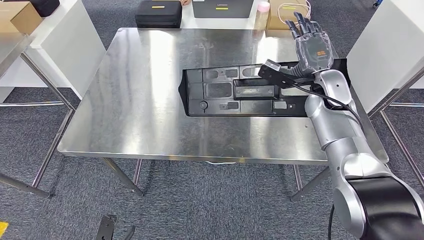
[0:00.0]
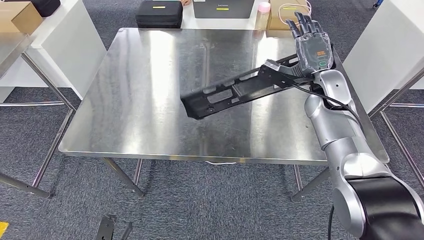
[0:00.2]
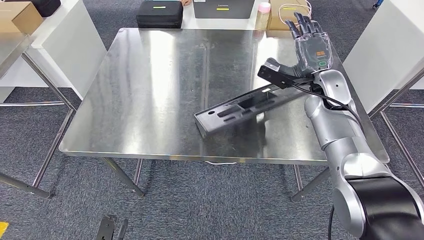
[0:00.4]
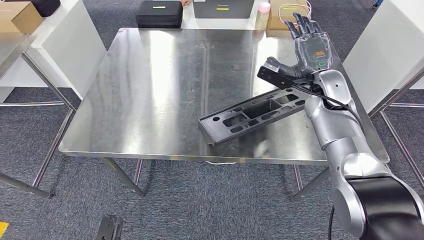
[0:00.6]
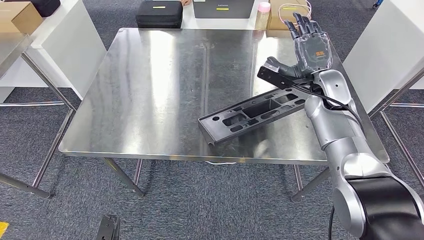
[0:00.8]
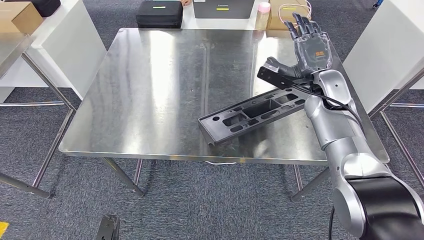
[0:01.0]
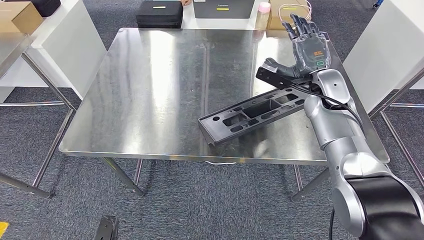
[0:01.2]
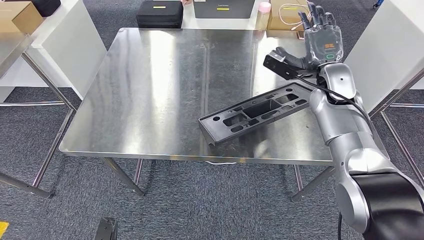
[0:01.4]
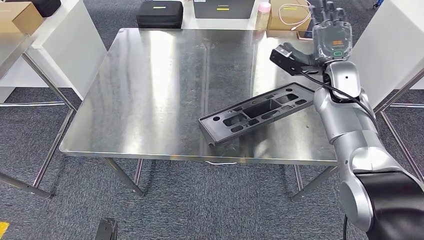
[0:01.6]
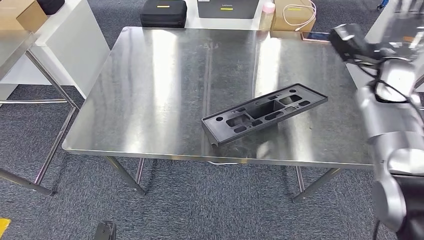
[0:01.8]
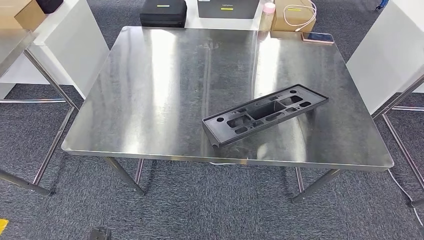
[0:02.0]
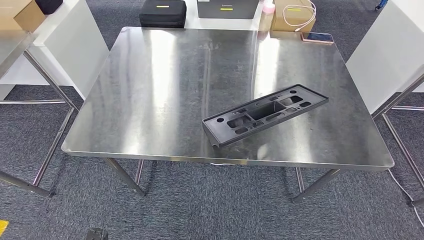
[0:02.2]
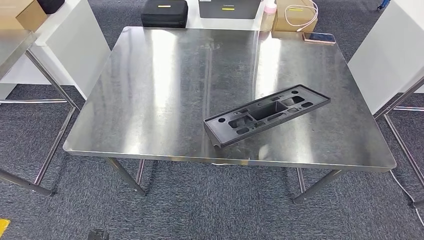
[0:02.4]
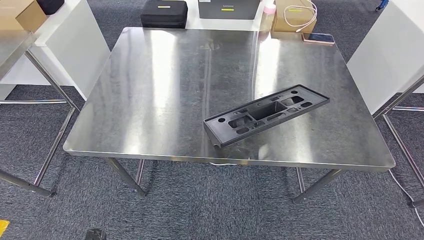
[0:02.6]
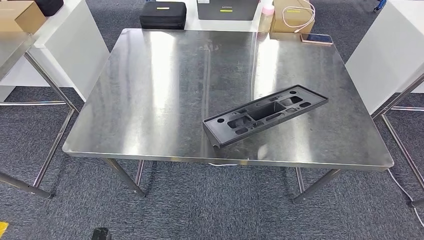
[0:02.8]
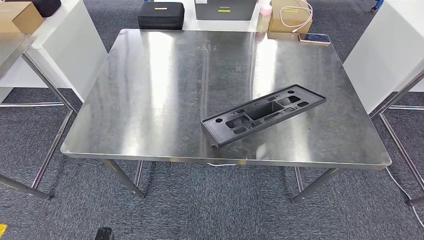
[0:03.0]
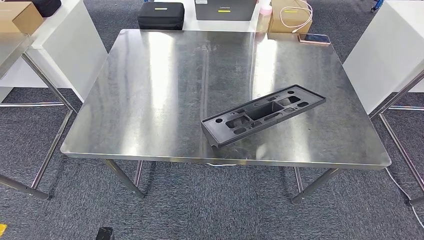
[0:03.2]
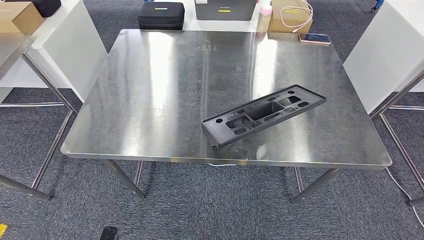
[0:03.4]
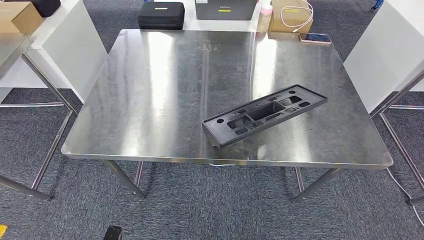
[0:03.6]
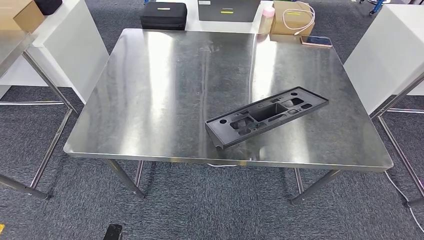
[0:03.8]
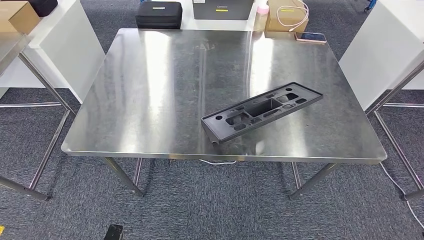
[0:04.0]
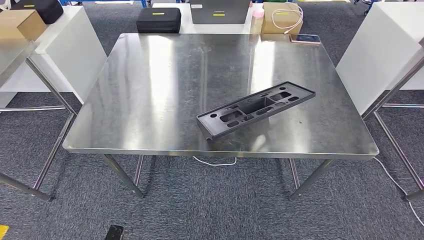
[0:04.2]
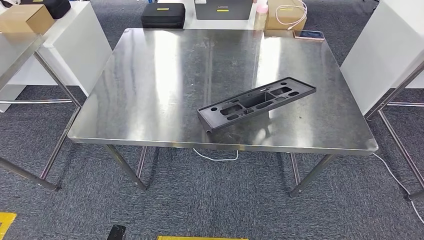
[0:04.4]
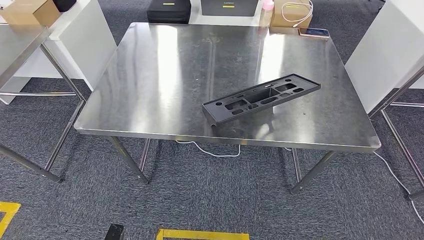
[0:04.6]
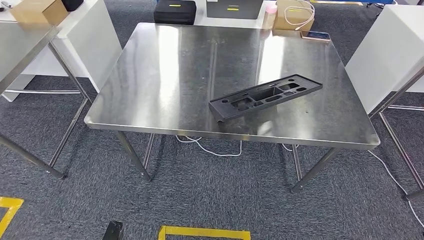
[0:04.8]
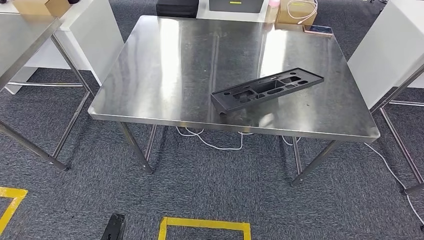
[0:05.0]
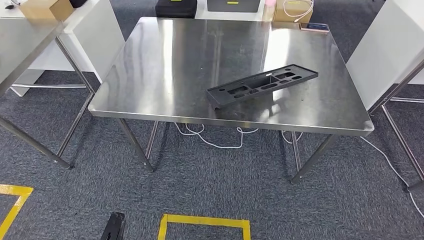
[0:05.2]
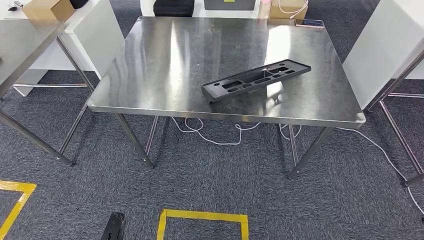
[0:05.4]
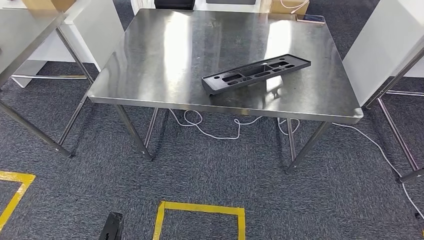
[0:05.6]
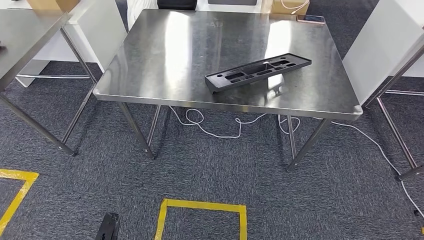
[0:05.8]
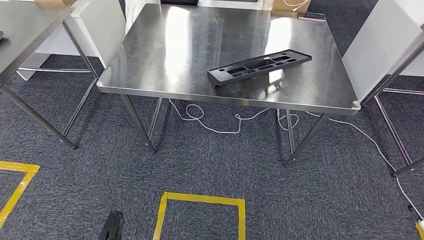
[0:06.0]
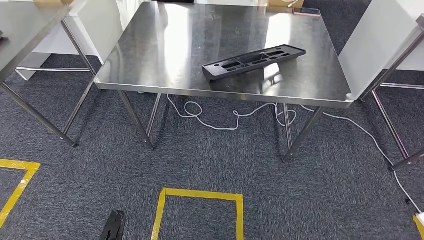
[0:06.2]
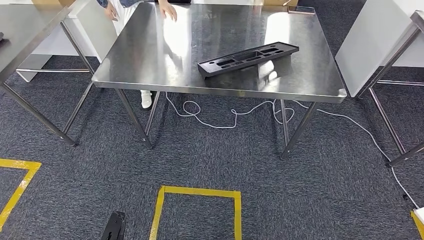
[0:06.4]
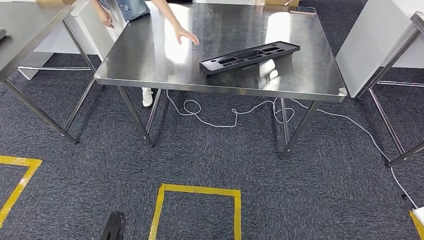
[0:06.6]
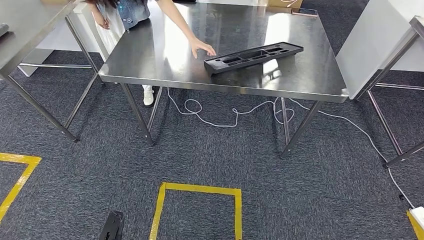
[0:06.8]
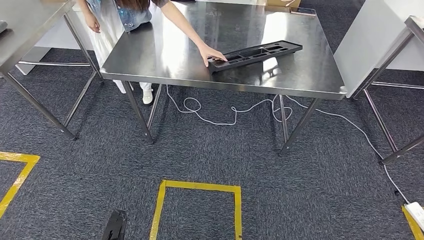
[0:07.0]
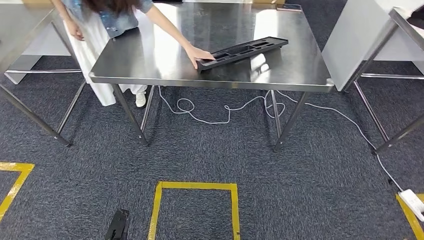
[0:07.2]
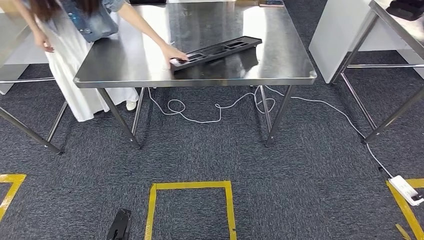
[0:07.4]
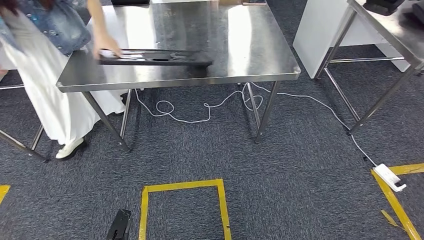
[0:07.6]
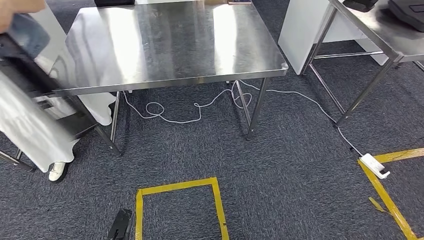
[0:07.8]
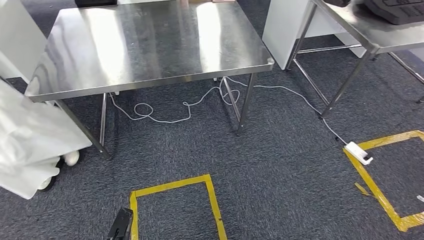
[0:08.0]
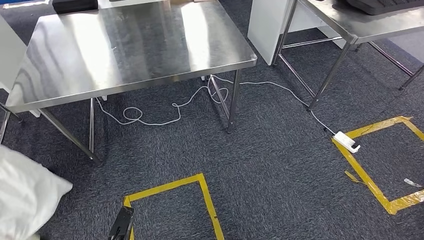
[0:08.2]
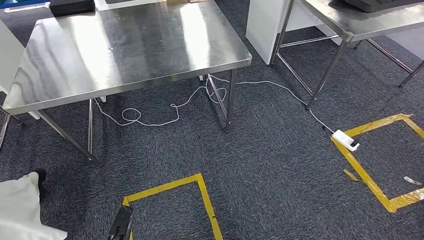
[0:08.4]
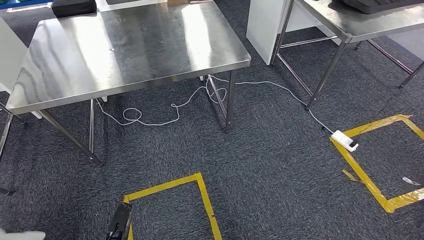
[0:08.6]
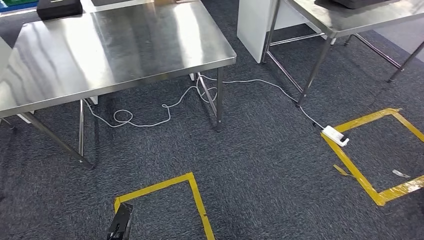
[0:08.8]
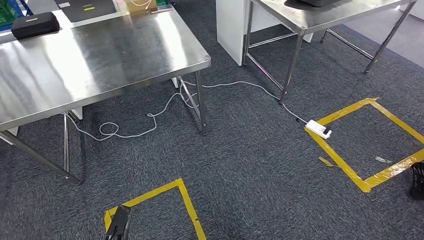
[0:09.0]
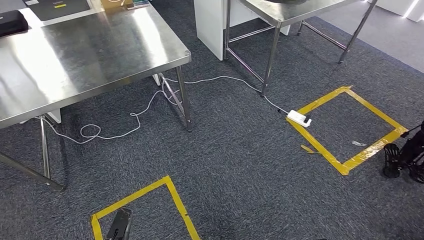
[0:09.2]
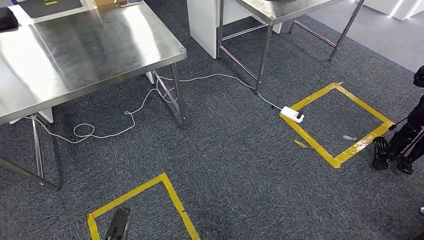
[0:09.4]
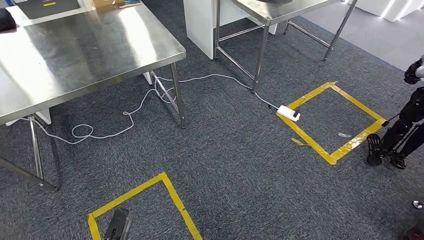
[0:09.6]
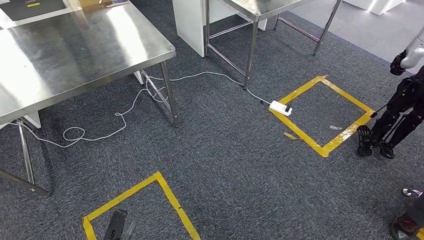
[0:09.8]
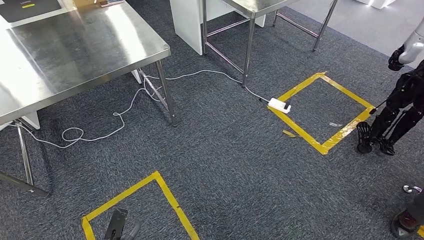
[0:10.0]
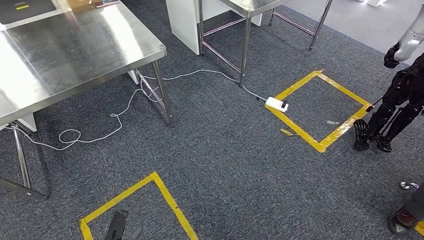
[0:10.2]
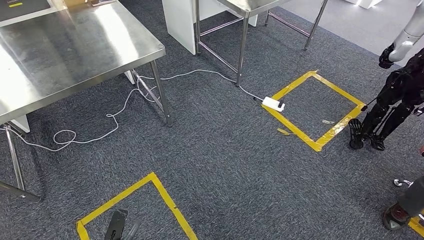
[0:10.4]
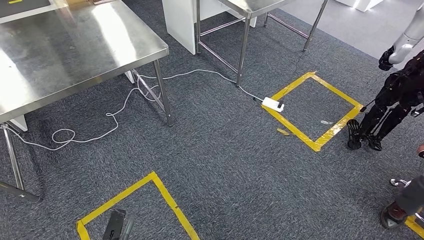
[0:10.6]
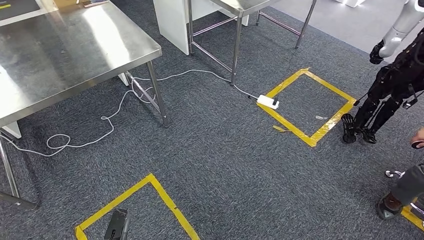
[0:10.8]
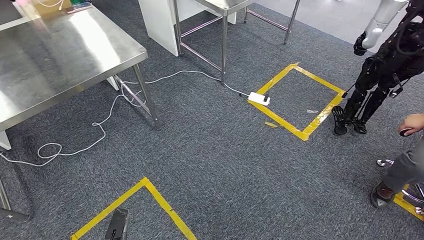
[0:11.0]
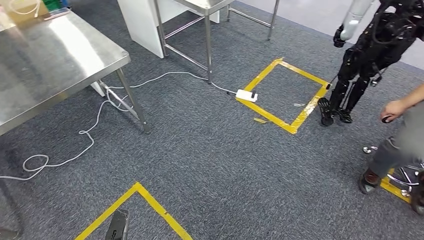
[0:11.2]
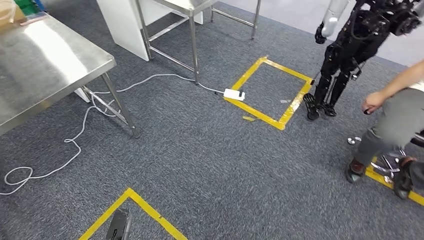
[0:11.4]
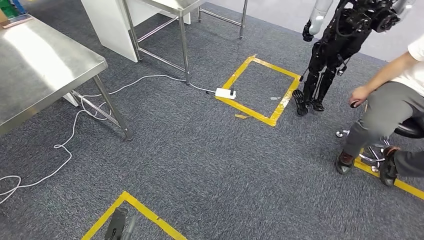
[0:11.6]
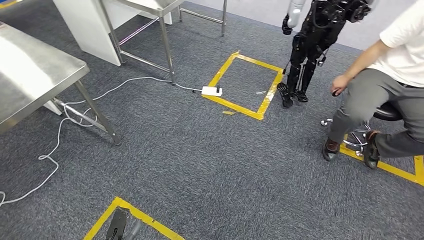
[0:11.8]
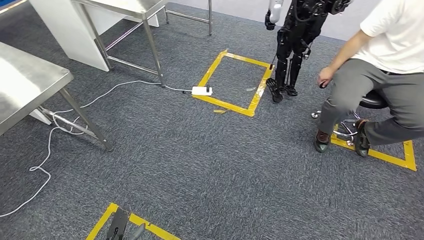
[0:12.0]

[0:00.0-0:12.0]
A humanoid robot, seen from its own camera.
0:00.0 to 0:01.6: There are only small adjustments of the hands.
0:01.6 to 0:03.0: The right hand goes about 50 cm backward and downward.

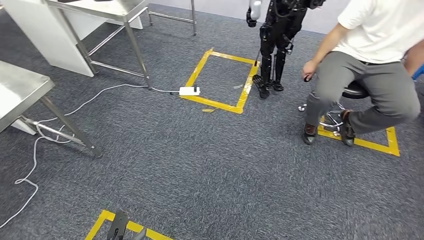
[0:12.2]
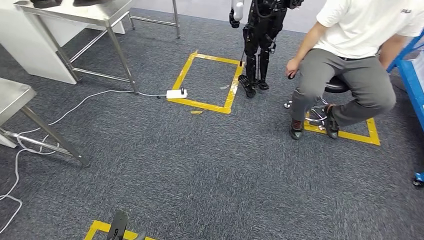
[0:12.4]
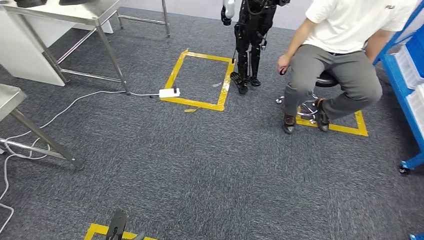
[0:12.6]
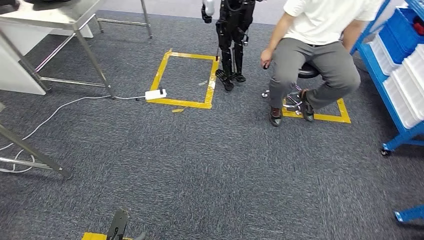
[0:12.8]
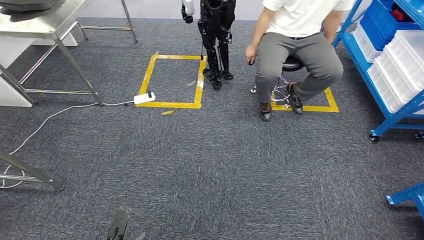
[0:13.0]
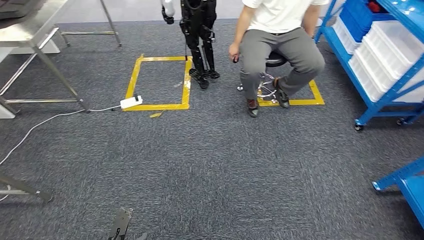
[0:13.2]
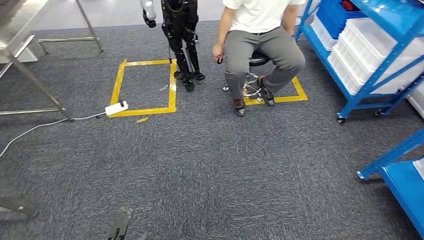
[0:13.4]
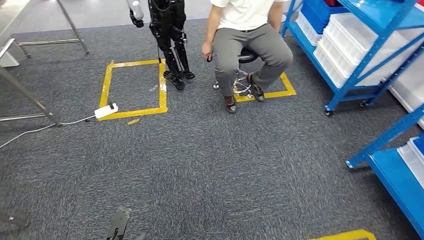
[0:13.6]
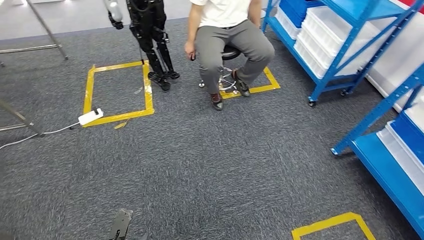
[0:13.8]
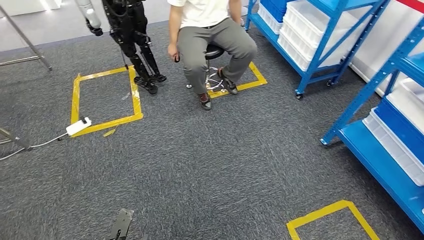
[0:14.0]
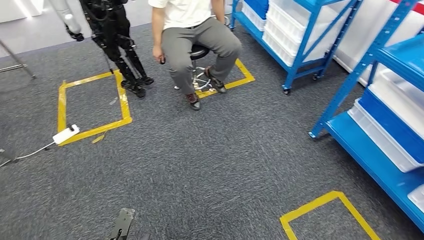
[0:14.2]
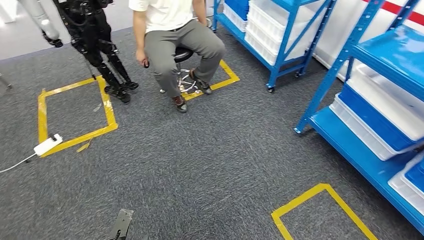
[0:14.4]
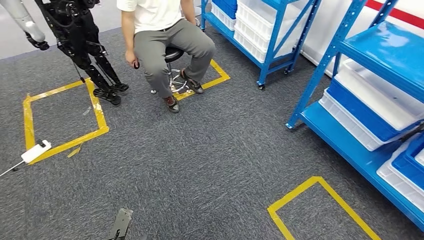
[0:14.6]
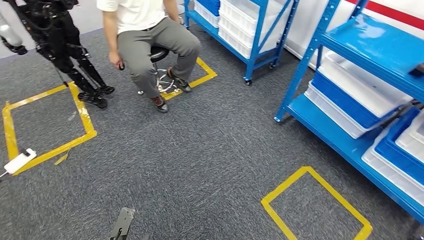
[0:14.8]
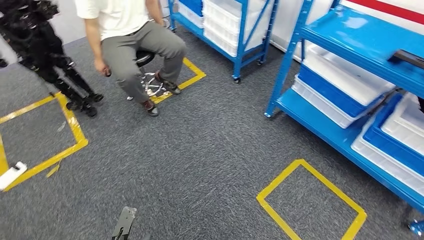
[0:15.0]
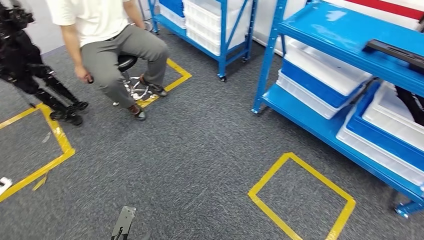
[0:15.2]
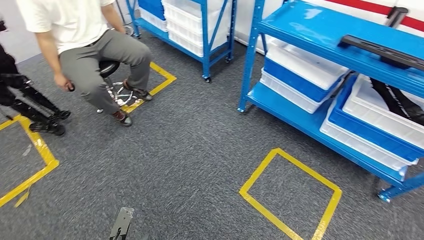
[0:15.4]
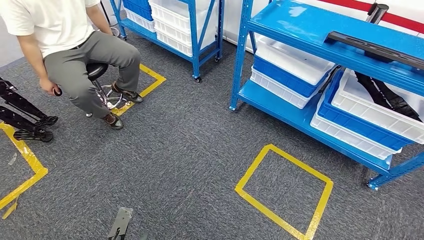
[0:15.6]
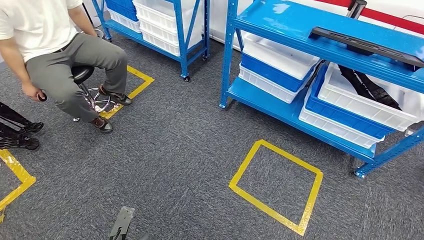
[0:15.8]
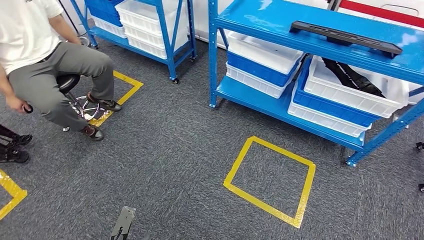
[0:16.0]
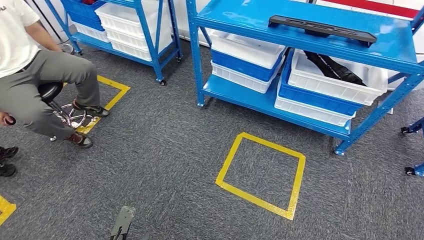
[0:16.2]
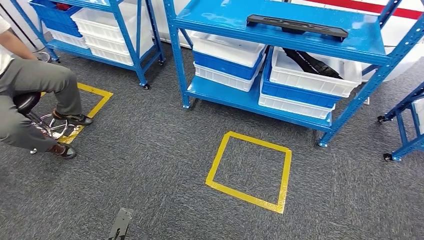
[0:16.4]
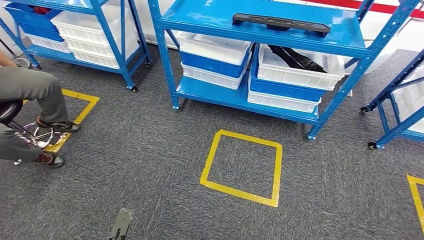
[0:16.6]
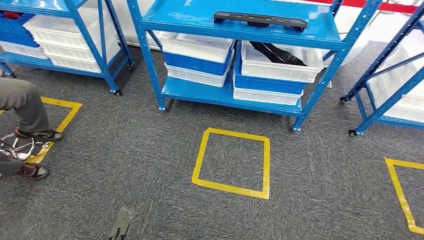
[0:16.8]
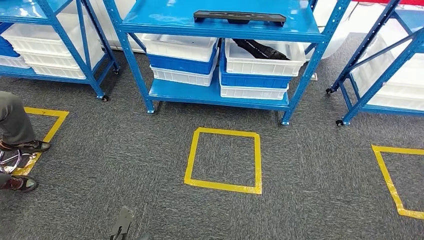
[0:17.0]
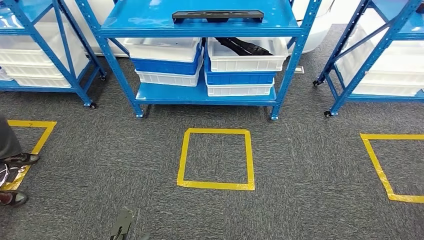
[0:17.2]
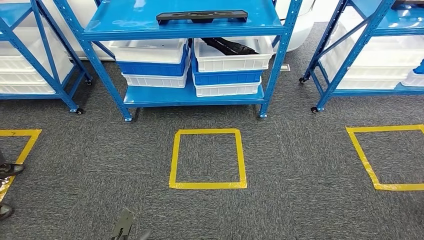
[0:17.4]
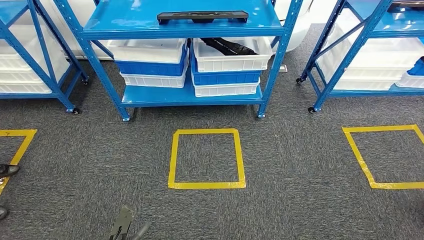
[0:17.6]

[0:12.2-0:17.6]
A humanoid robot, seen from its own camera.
Step, 0:12.2 to 0:17.6: Move to the initial position of the shelf.
